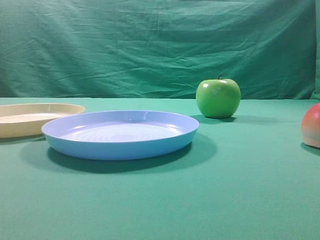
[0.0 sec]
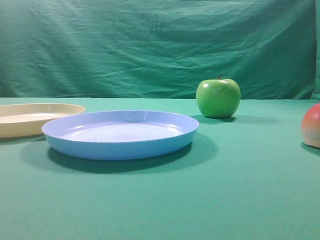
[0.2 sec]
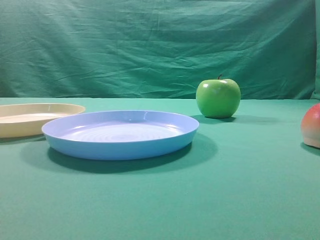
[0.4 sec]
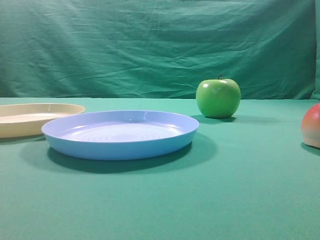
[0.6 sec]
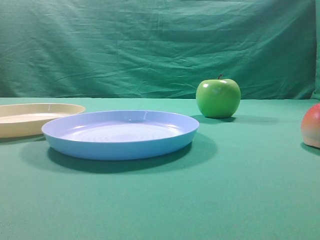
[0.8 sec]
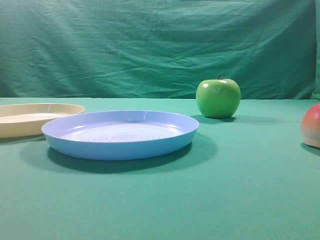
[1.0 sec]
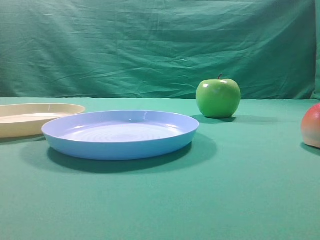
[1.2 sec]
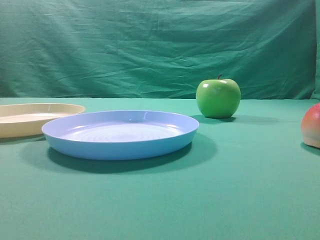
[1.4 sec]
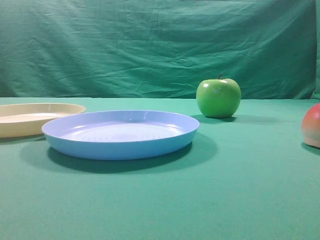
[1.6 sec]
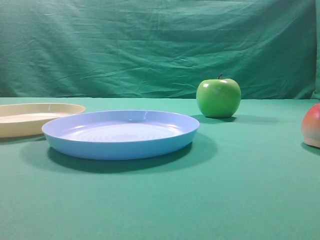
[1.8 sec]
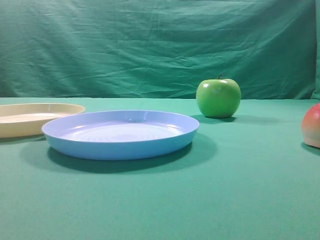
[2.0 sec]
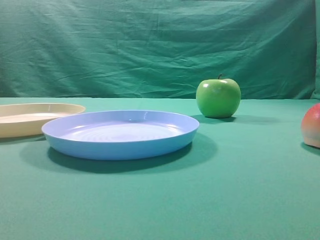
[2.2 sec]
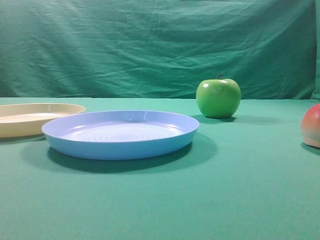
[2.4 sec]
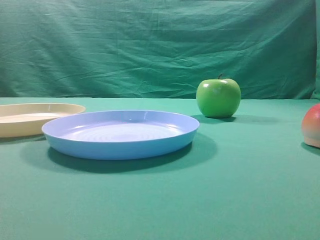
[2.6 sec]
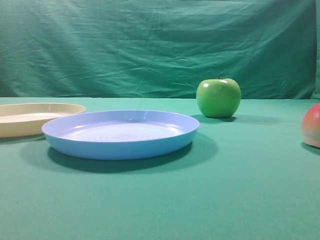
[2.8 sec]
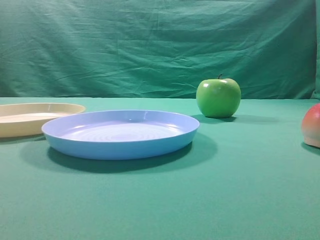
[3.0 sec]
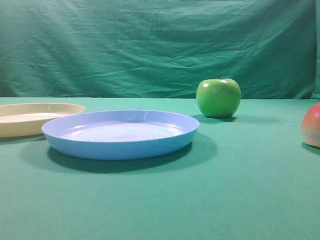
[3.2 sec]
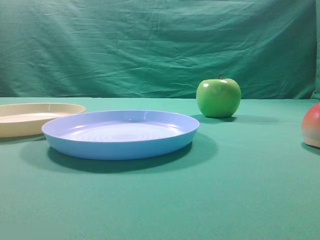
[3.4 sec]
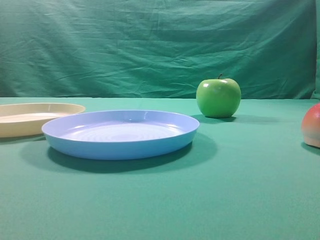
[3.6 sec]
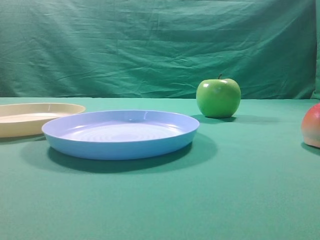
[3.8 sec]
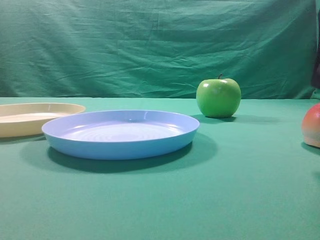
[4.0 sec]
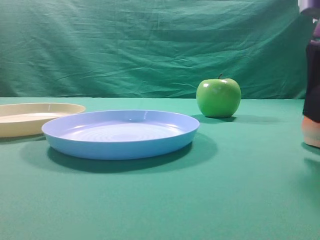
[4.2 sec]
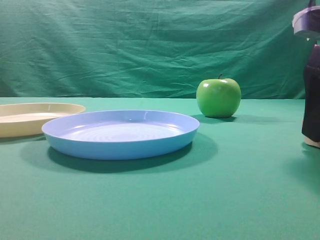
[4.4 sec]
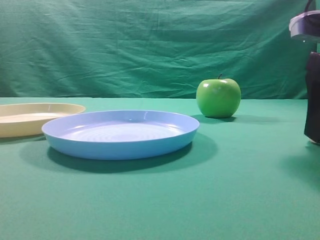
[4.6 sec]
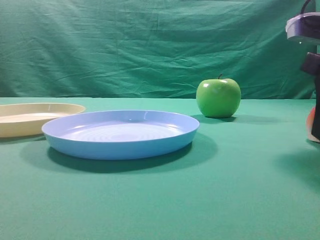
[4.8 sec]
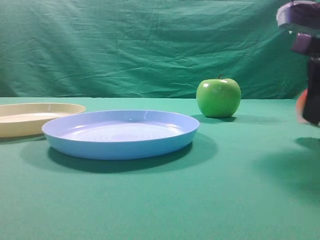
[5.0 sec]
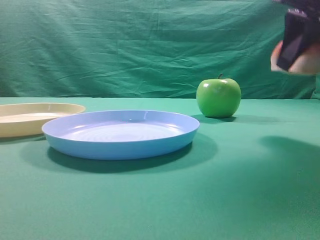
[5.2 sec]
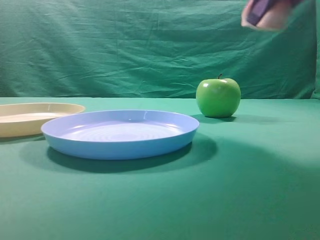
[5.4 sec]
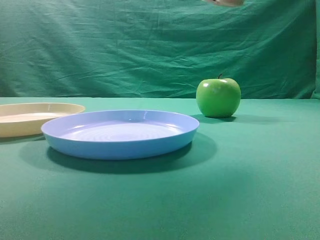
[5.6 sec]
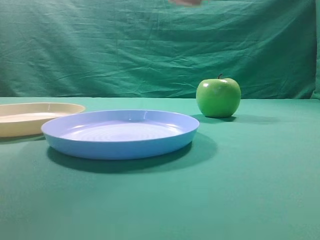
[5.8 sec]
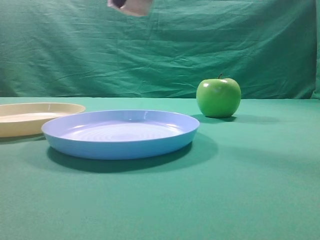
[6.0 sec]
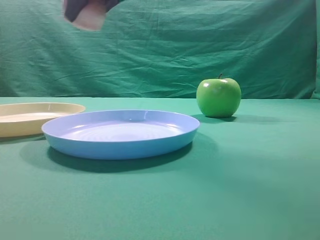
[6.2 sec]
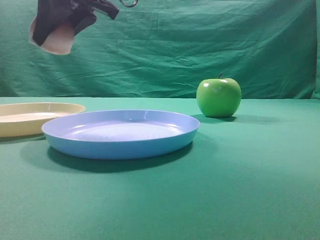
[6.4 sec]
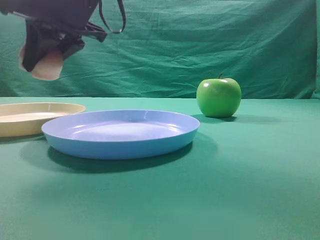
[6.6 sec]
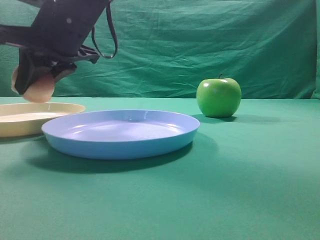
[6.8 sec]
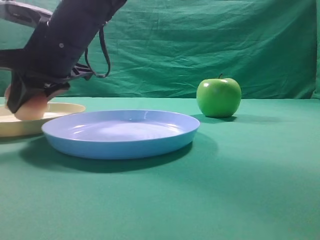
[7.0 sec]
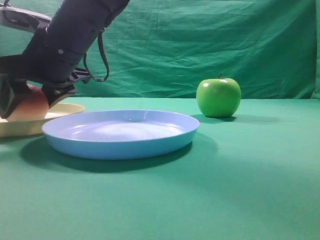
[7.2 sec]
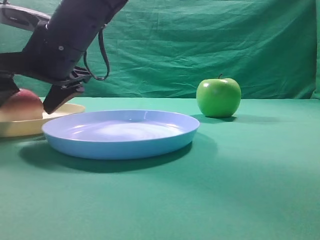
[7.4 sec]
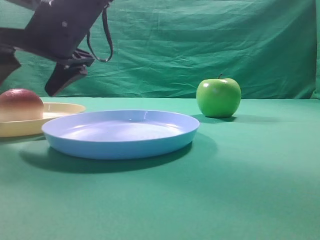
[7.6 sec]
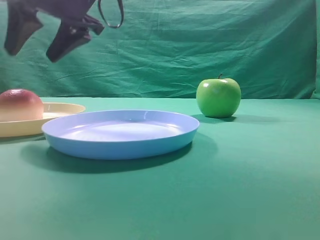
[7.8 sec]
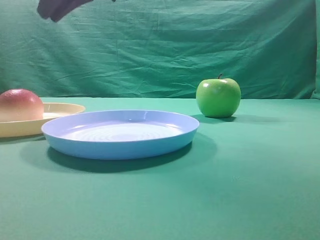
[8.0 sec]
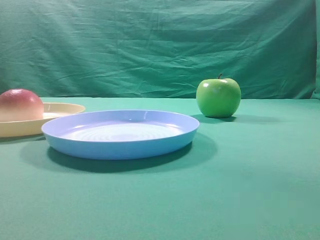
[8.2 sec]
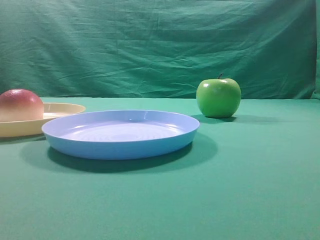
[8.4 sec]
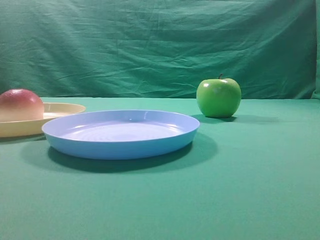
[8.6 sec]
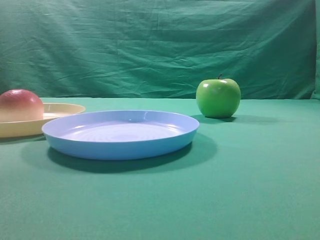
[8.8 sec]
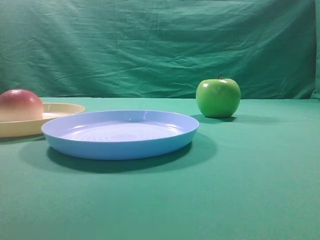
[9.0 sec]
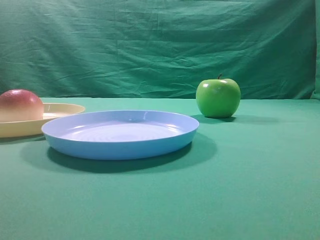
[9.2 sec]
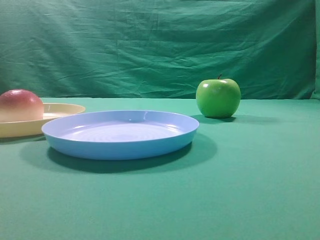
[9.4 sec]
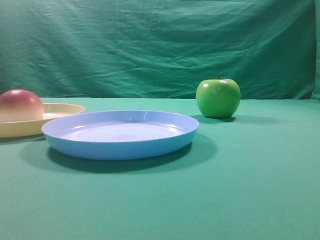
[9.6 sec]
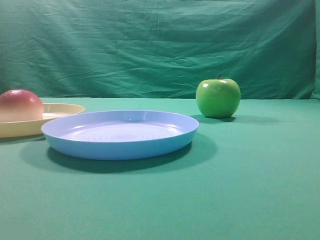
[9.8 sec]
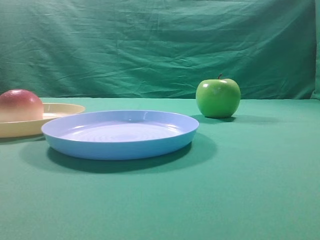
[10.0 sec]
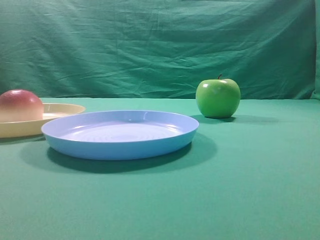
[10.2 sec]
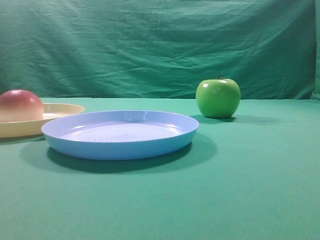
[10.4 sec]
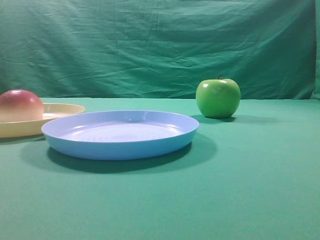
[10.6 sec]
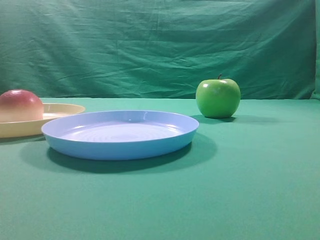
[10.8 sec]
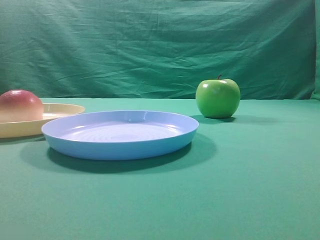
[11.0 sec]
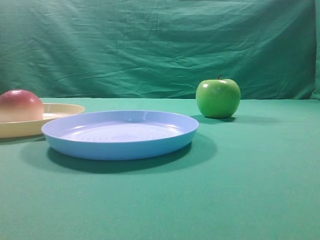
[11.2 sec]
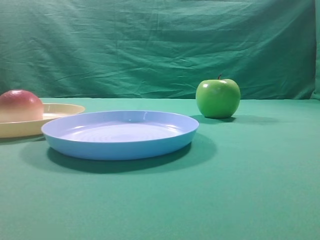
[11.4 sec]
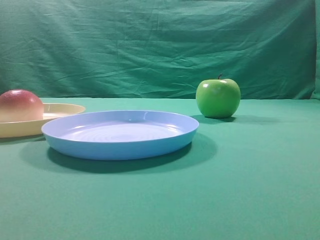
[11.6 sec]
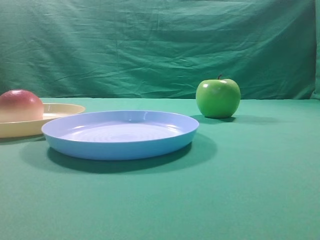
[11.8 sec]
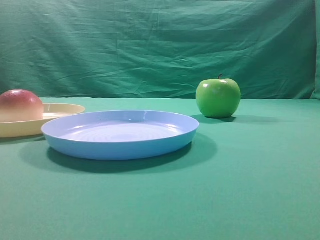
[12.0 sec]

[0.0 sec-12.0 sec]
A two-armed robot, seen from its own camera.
Step, 5.2 sec to 7.6 sec: Place the picked object on the yellow plate.

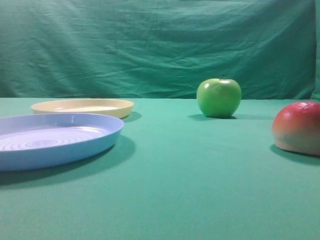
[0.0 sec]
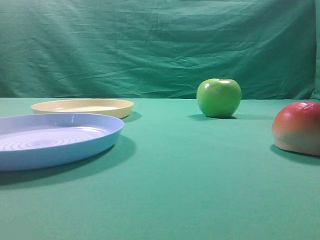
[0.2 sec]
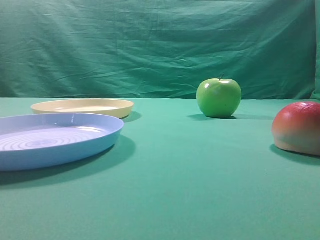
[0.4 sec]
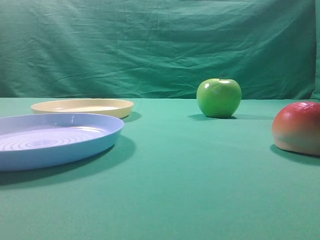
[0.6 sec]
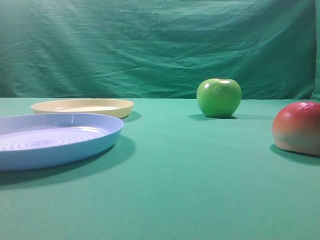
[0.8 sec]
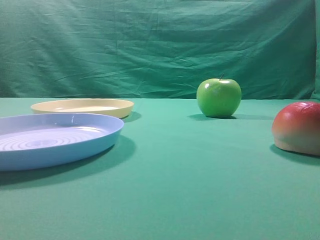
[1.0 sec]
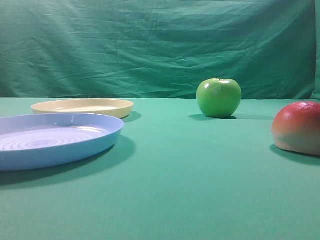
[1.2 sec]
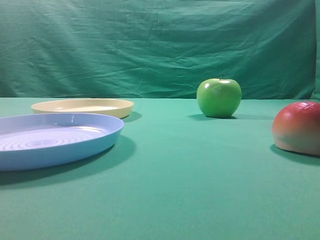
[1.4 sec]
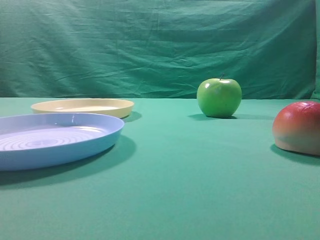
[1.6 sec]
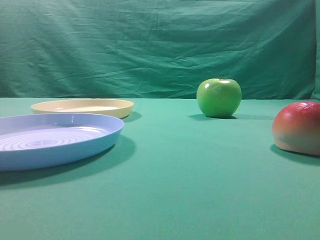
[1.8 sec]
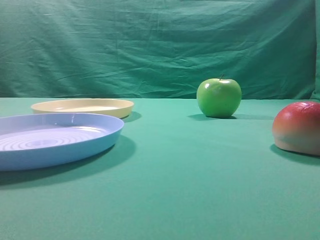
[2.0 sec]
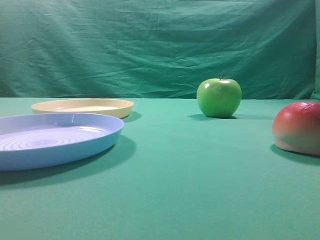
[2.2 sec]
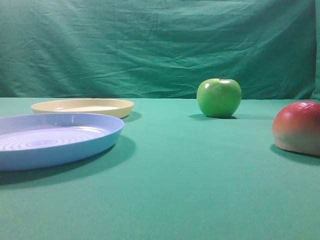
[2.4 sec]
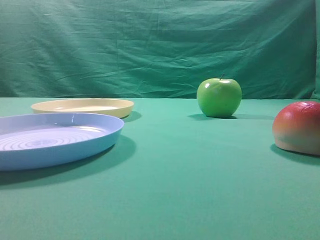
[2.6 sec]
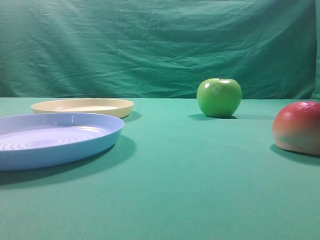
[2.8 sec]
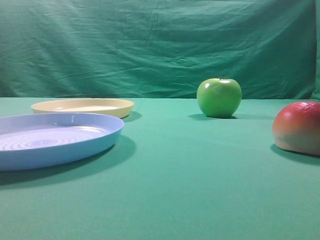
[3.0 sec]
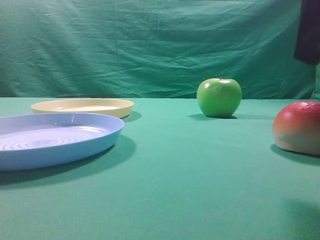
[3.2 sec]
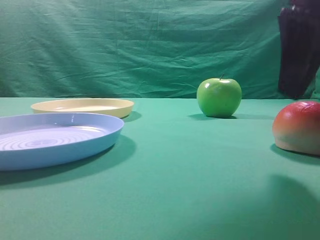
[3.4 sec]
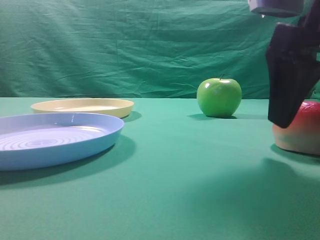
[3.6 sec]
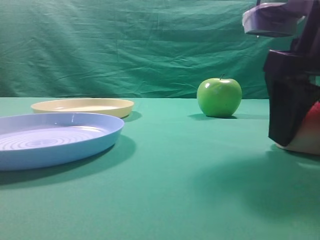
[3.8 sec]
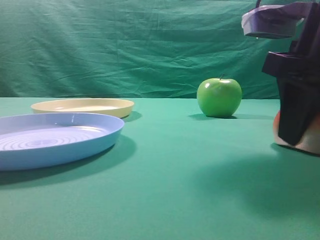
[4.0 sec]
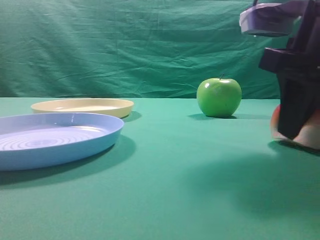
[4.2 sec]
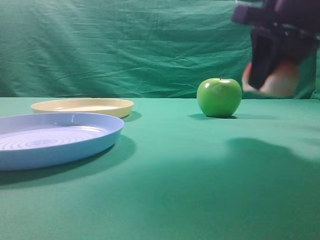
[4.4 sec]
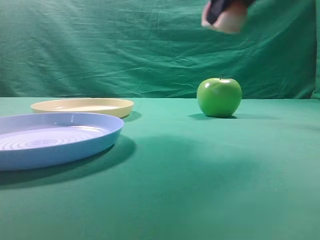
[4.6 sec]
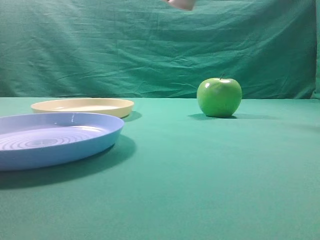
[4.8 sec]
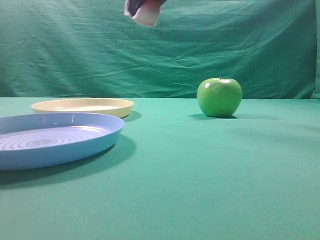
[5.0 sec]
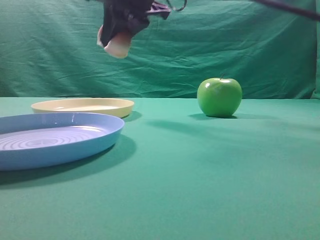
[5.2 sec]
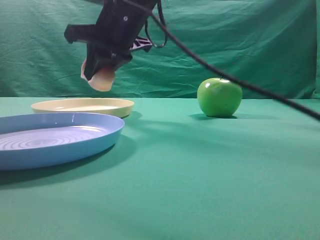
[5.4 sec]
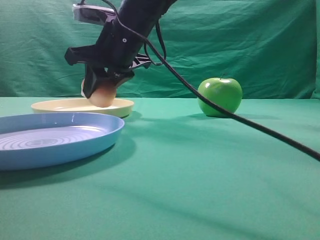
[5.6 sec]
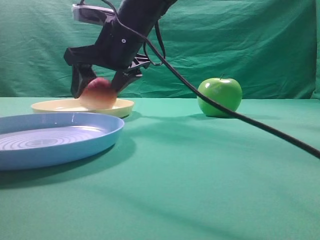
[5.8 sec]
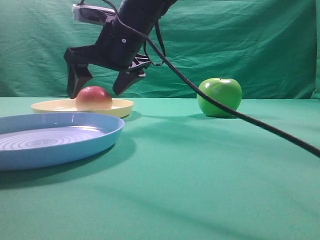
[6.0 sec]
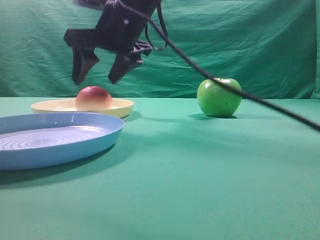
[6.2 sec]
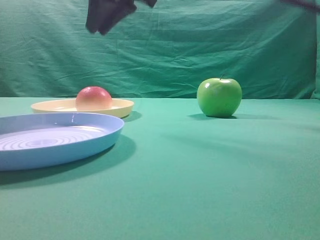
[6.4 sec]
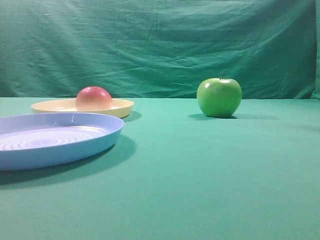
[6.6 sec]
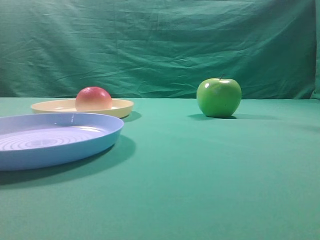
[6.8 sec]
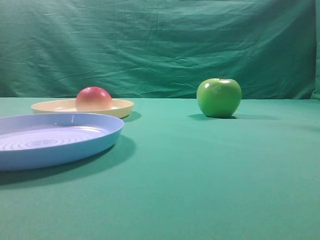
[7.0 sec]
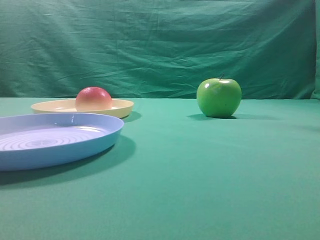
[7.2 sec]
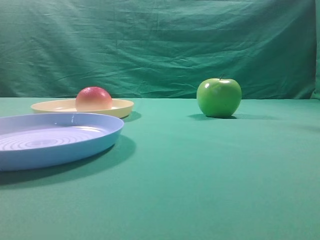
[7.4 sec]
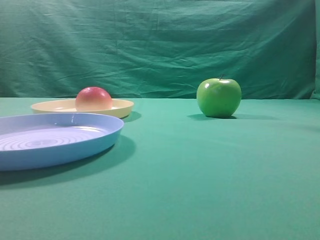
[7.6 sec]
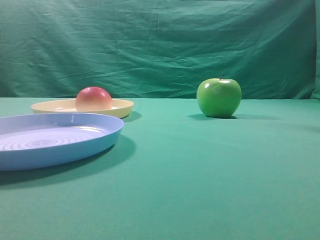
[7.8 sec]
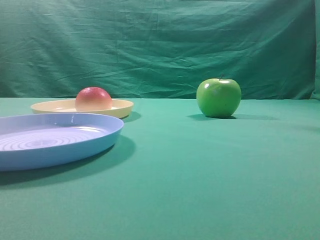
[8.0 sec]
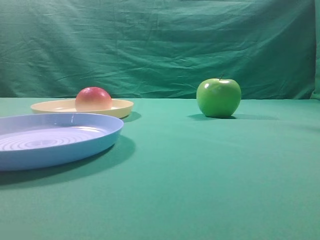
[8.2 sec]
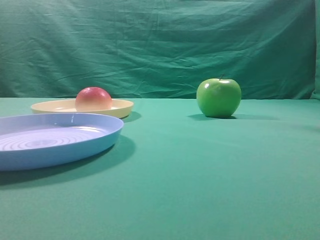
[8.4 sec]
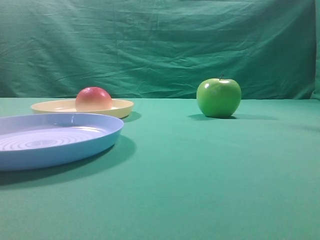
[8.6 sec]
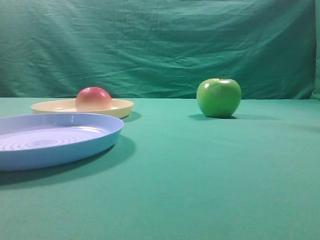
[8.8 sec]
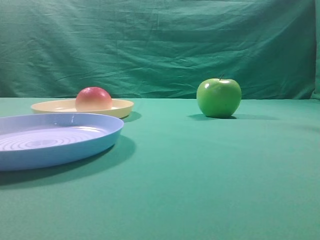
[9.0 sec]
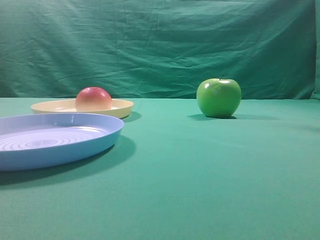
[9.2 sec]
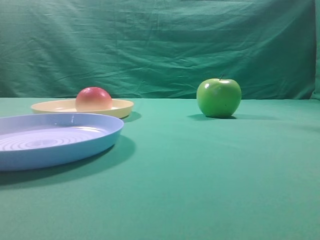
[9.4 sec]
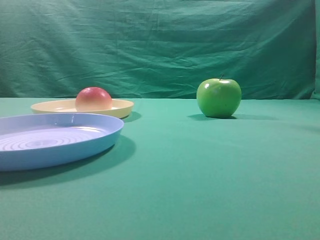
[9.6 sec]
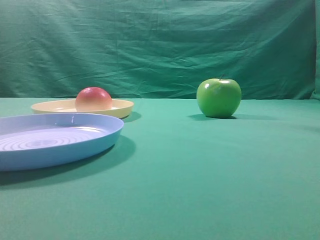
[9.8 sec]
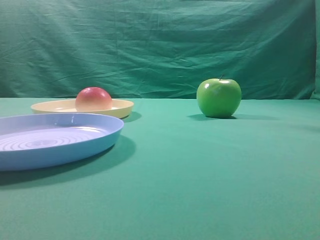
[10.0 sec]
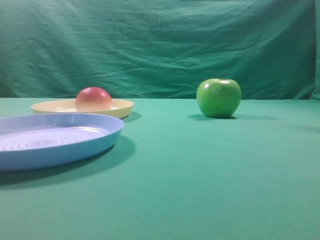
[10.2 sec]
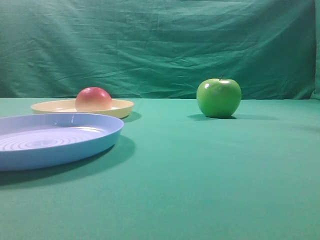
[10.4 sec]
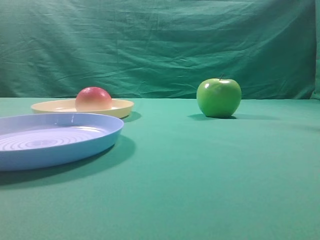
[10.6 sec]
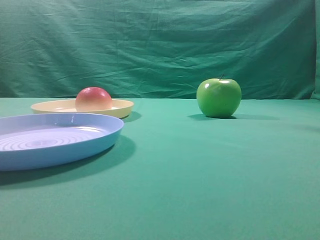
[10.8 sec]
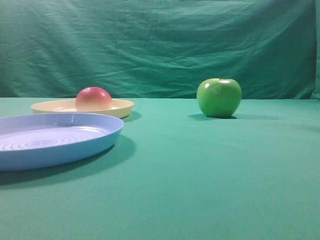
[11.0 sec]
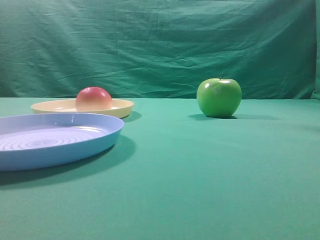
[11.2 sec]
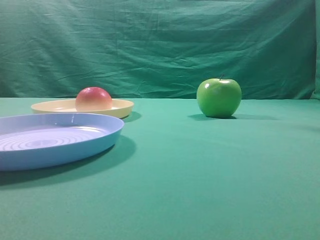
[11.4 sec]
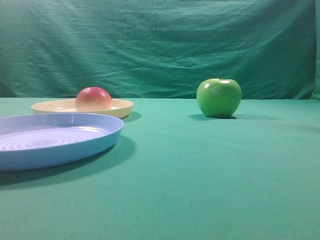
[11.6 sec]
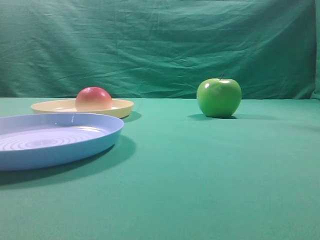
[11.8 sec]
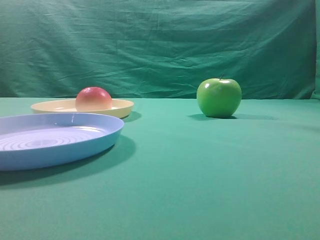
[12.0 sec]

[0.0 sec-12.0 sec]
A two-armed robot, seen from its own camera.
Step, 4.4 sec to 6.2 sec: Place the picked object on the yellow plate.
